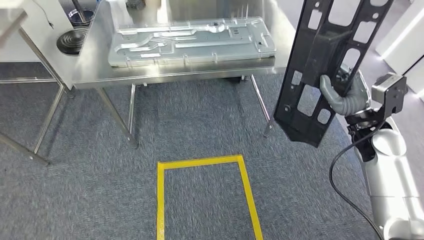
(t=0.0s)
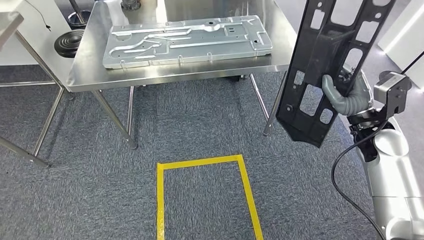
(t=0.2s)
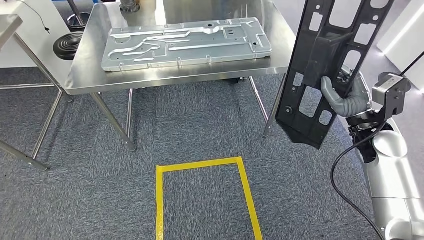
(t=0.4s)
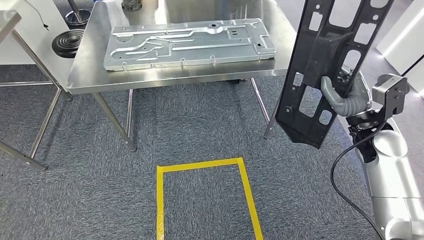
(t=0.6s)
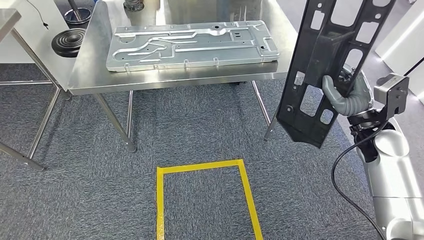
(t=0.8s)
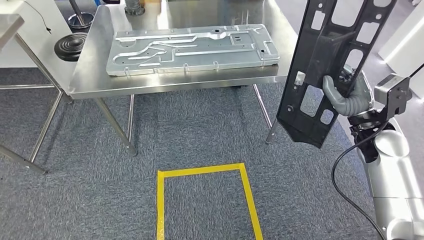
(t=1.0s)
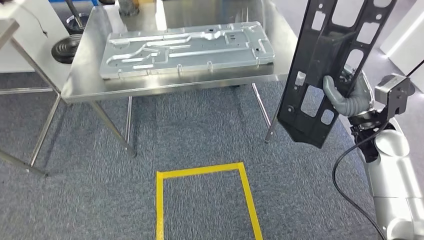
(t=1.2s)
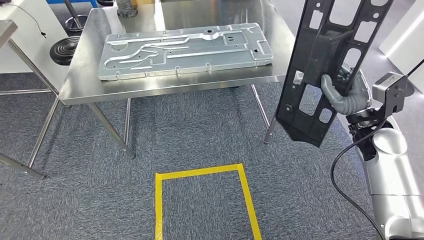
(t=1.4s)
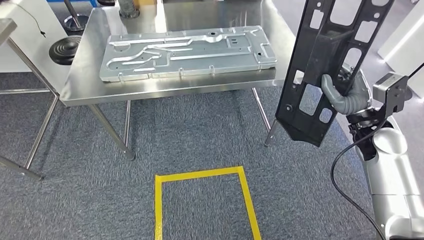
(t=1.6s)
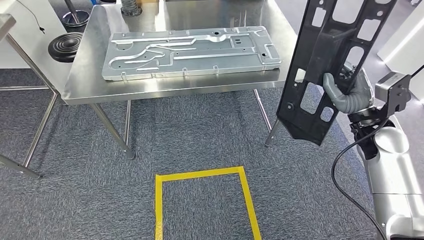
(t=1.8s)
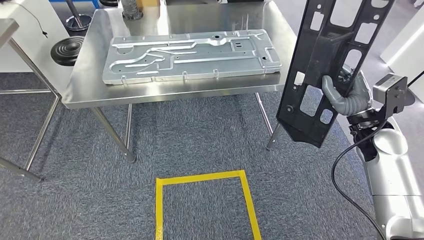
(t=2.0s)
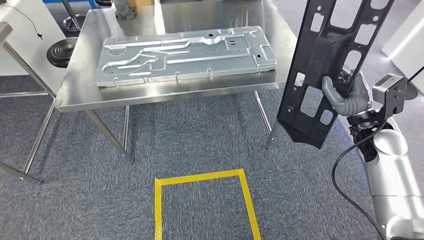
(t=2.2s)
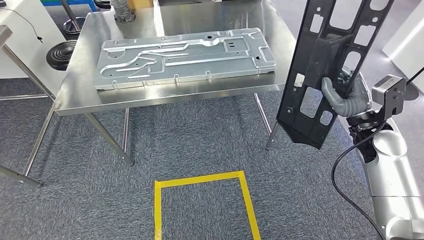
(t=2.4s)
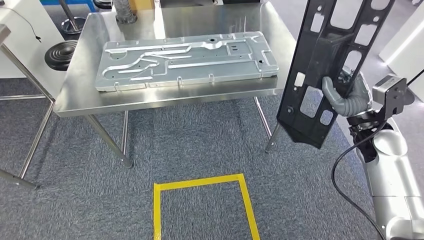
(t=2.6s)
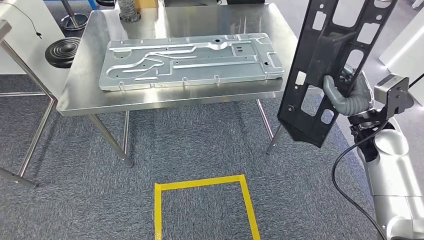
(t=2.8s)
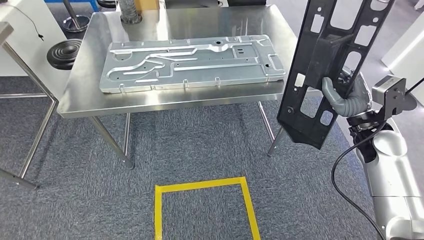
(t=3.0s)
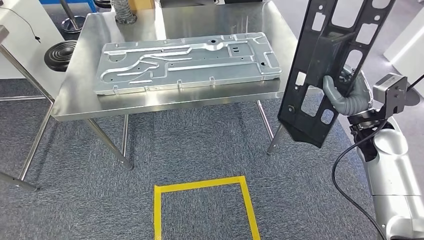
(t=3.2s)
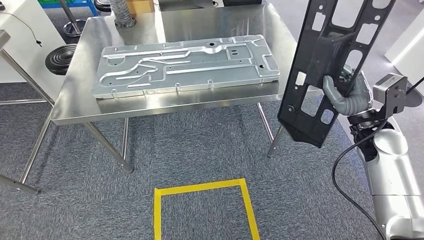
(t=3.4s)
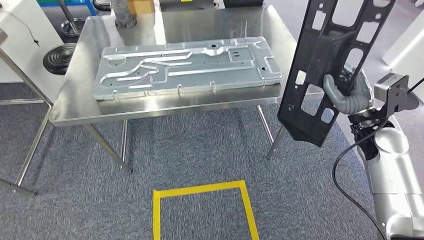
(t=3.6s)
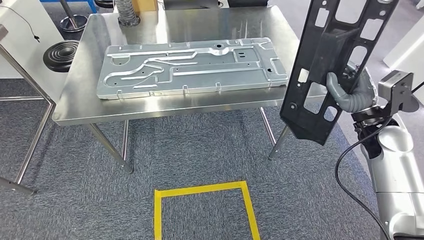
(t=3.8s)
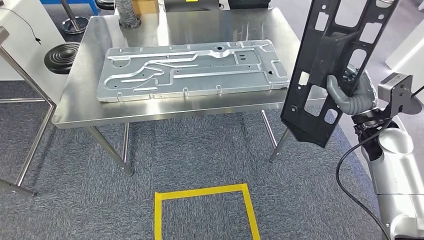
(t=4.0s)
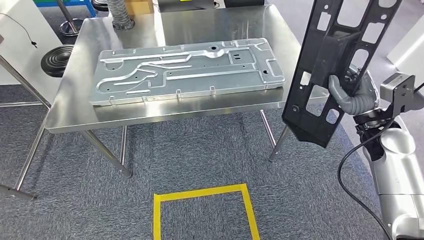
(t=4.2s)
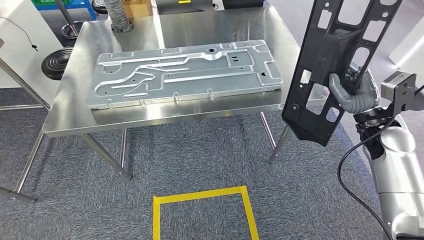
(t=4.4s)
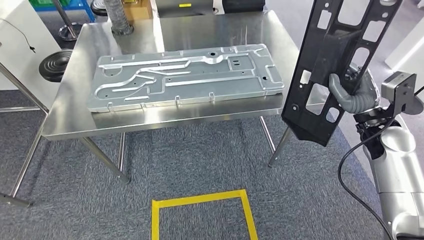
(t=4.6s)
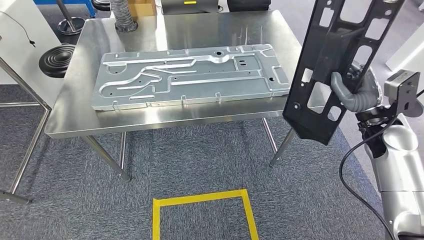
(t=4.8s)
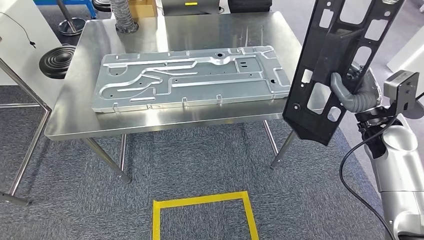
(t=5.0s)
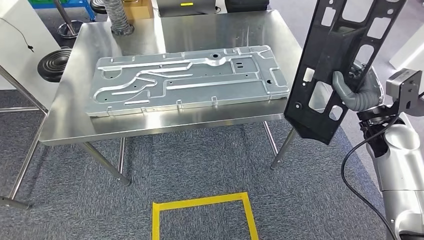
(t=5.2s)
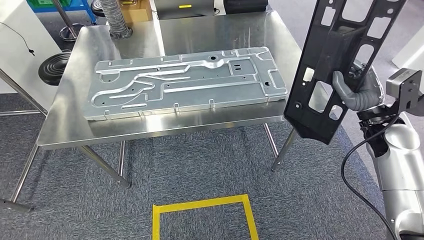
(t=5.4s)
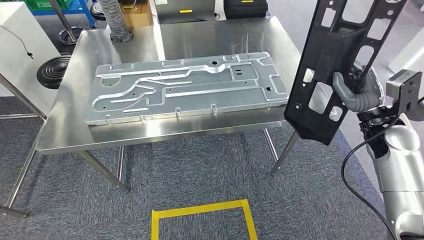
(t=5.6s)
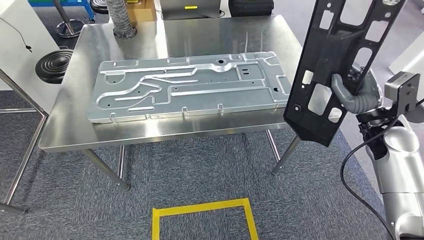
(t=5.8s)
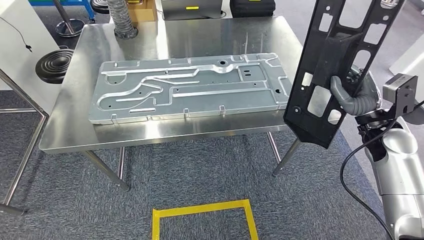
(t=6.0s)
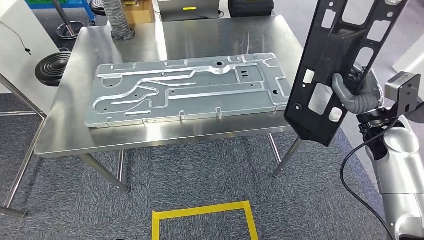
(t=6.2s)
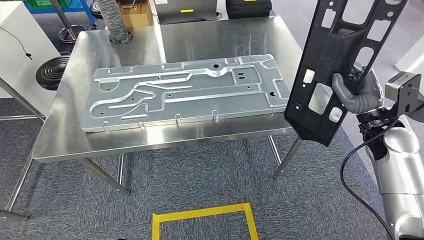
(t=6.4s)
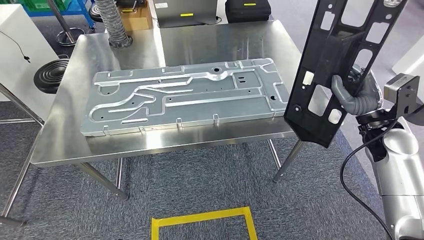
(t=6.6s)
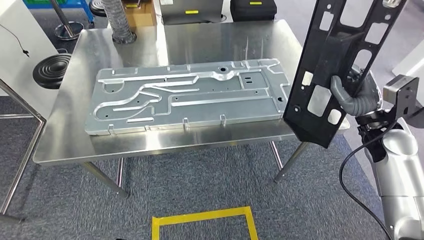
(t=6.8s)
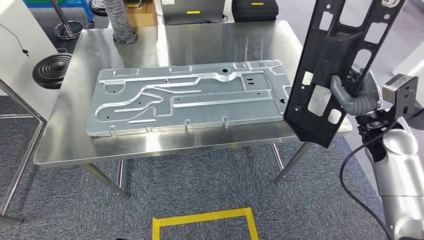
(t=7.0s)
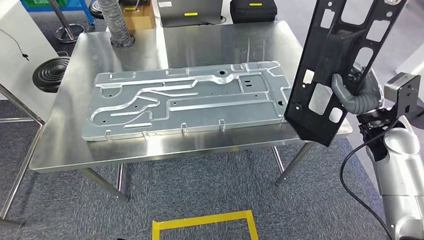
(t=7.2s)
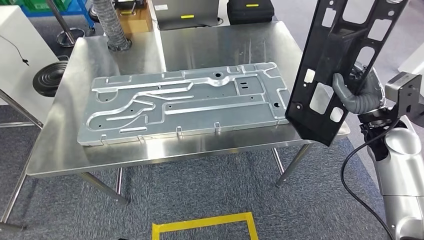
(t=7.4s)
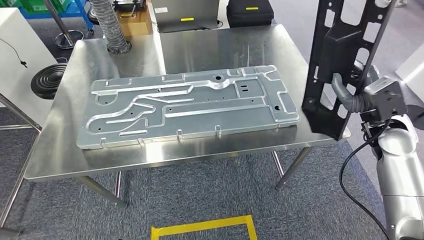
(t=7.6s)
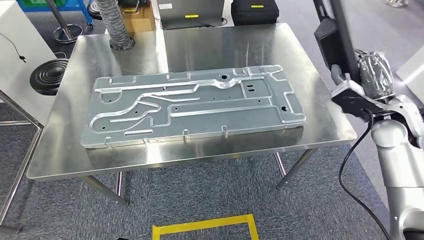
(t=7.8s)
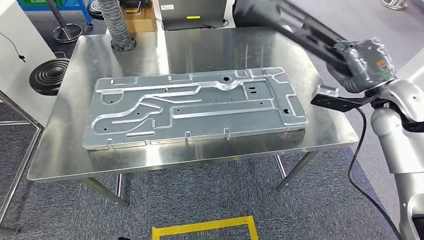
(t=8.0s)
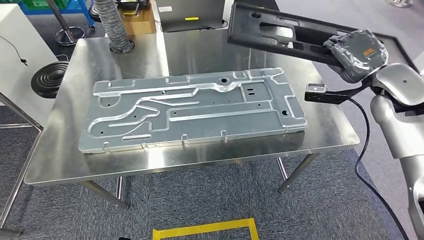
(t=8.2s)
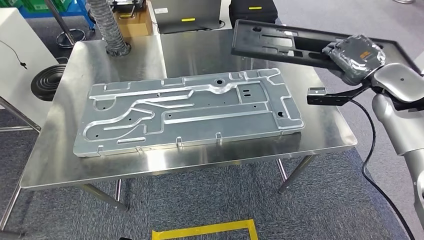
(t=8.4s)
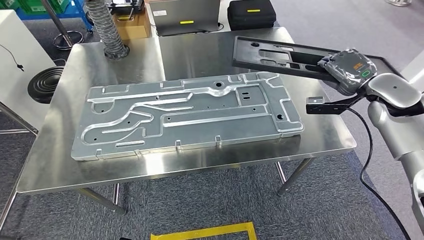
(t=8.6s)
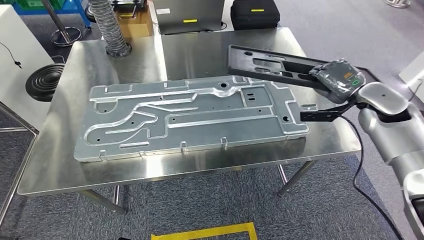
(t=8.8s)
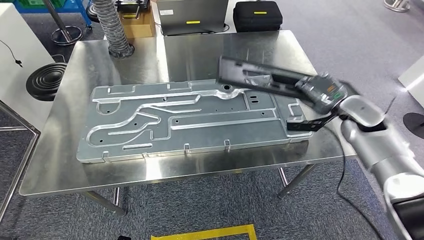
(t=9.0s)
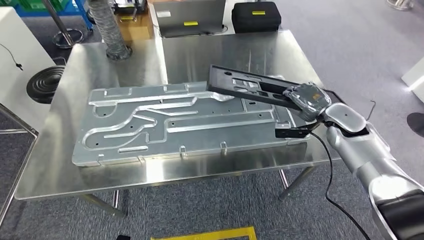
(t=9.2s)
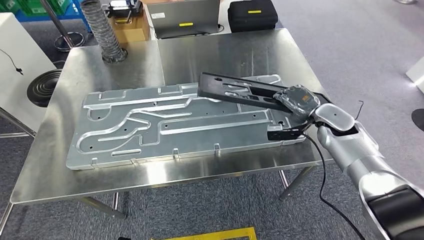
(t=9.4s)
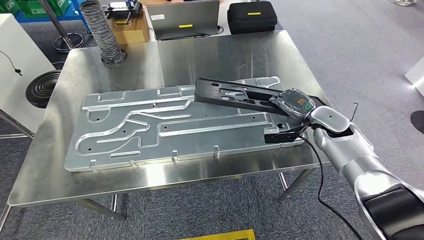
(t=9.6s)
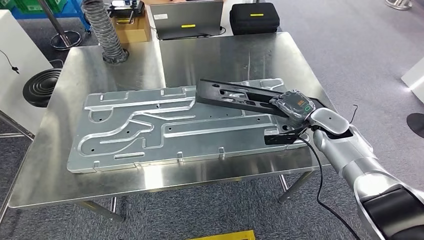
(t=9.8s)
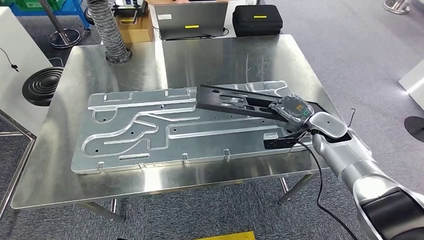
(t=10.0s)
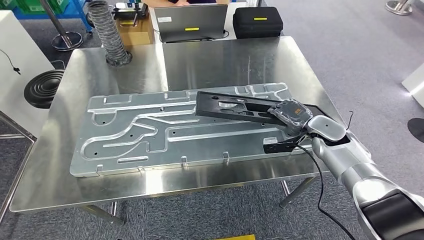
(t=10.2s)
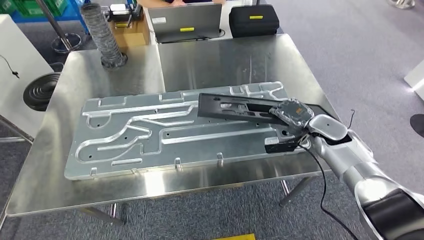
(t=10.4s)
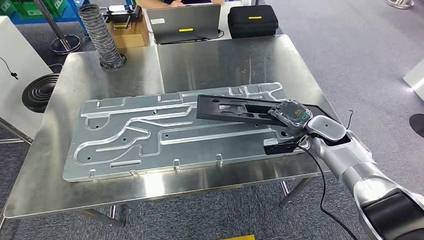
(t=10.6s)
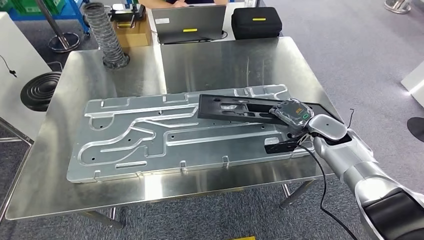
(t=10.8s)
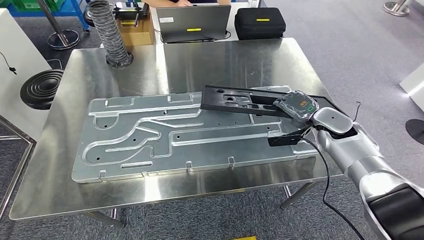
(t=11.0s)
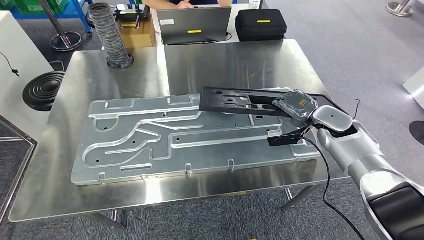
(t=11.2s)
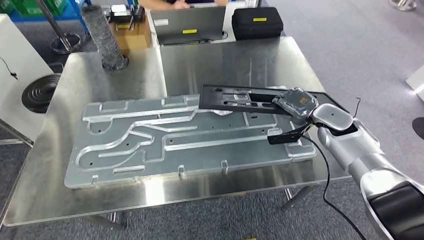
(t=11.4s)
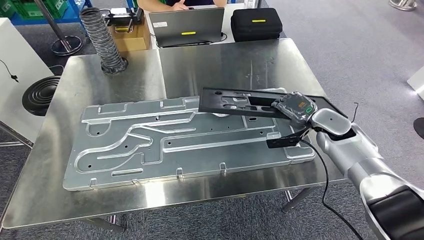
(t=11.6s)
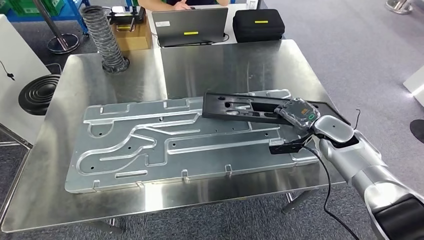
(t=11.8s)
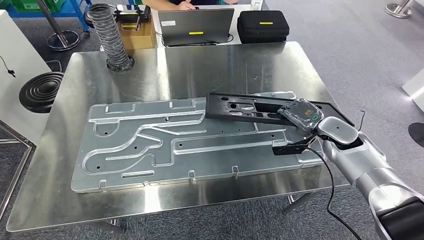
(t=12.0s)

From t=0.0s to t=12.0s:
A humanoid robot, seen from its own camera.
Step, from t=0.0s to t=3.2s: Move the large material to the workbench.

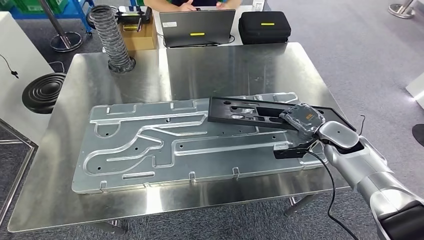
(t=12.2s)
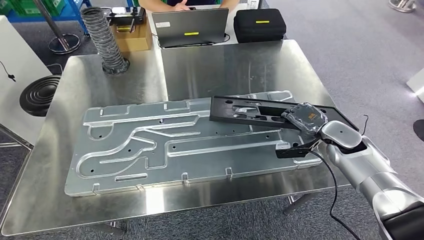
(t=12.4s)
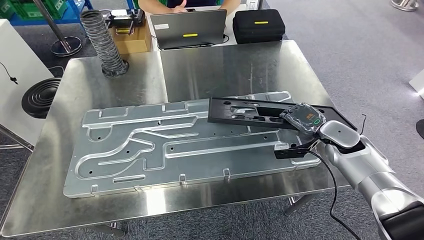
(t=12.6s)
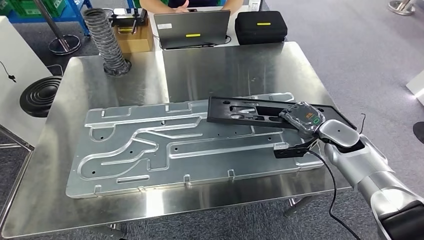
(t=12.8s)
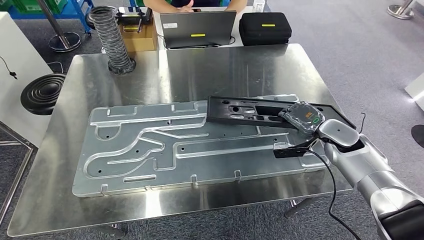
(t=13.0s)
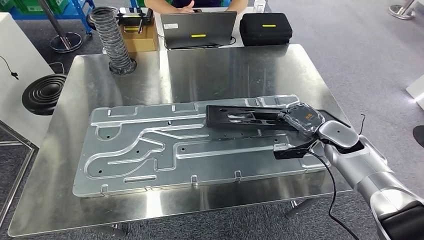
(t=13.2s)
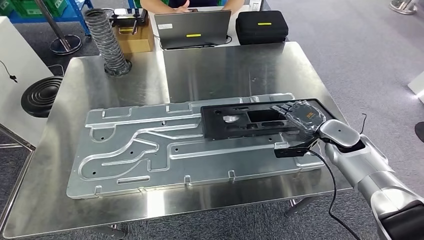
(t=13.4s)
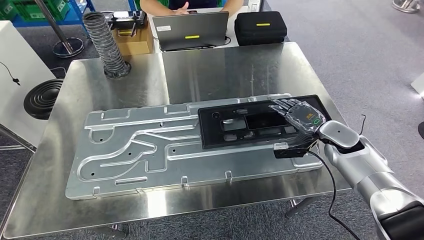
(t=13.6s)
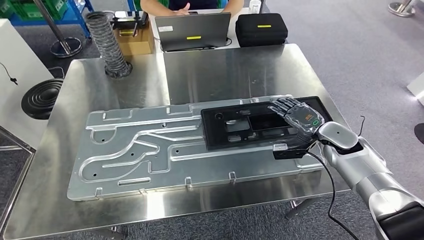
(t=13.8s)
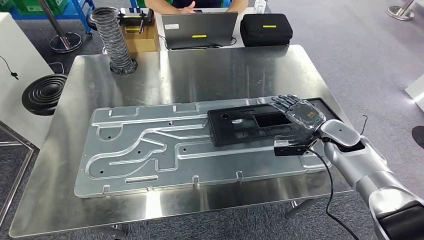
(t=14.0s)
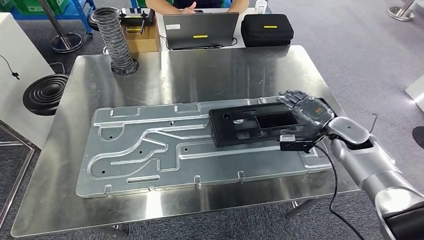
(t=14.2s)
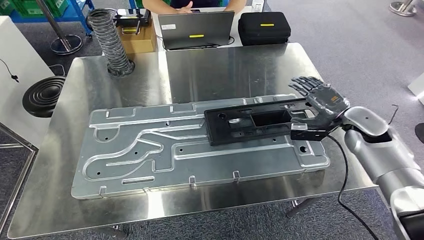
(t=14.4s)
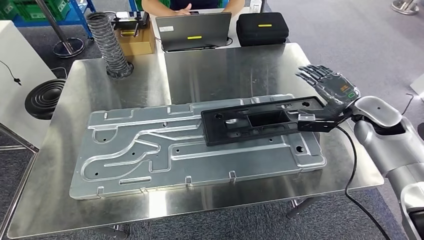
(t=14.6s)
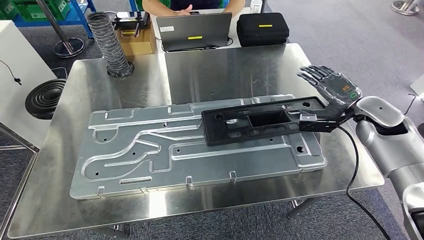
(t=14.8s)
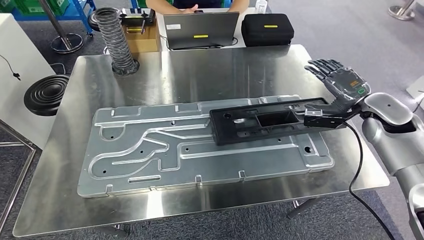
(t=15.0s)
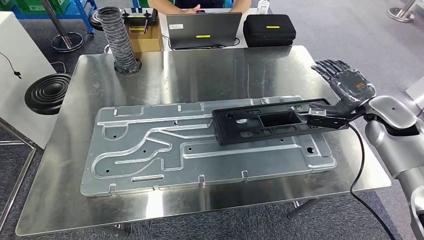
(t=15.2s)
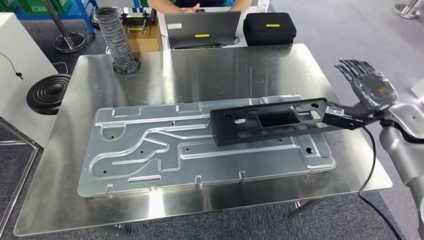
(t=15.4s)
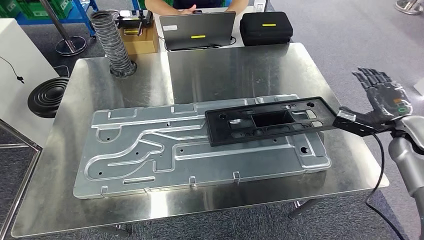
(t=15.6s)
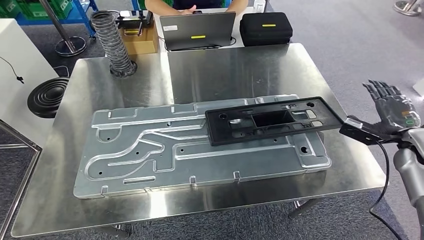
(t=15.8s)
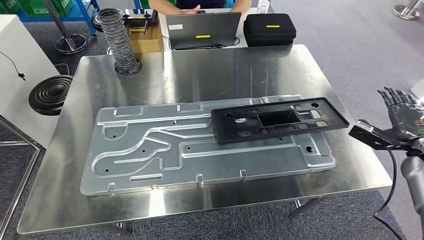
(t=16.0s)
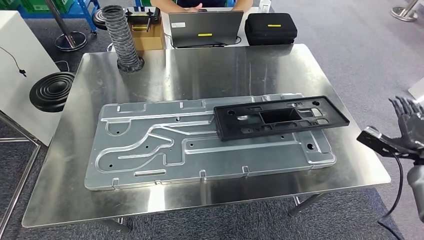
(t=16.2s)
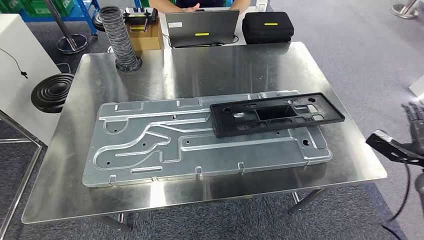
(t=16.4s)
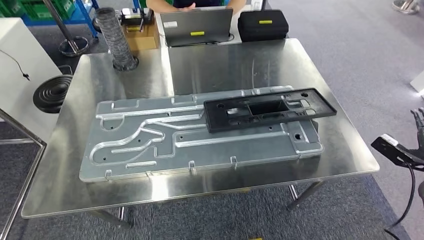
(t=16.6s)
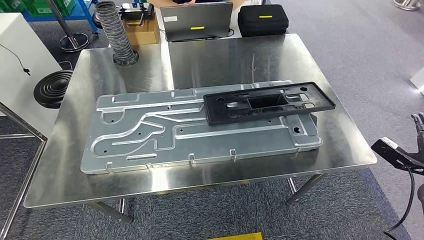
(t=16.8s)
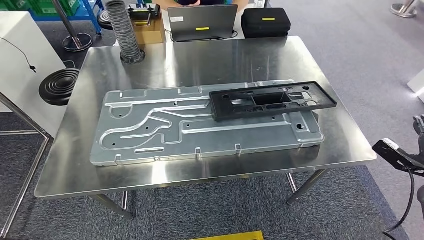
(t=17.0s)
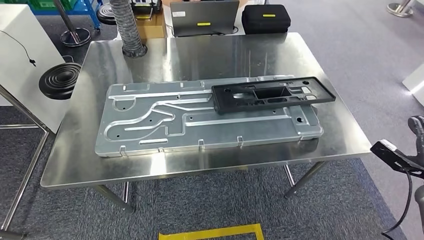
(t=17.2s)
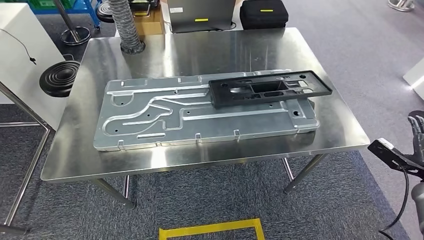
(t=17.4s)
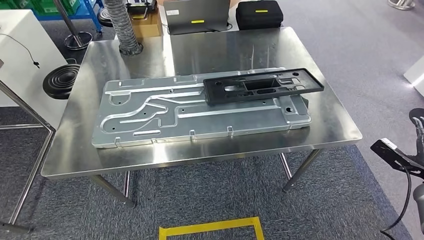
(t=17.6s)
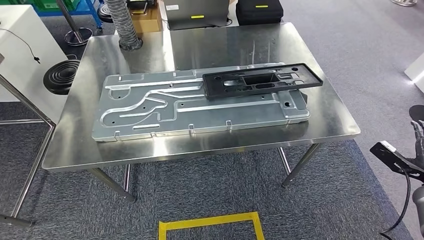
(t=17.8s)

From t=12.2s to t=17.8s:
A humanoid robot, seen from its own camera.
Step, from t=12.2s to t=15.0s: Insert the large material into the corresponding slot on the workbench.
